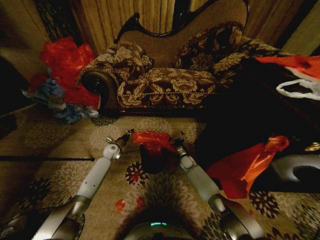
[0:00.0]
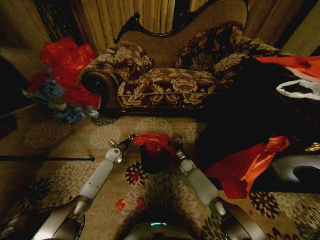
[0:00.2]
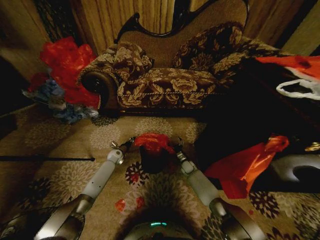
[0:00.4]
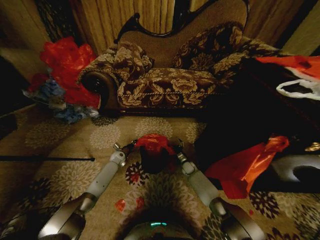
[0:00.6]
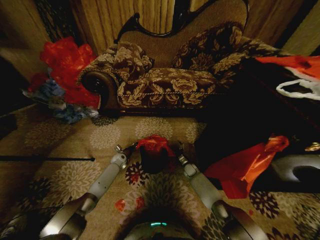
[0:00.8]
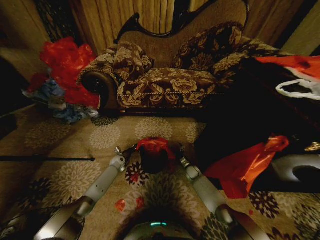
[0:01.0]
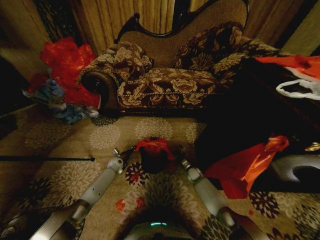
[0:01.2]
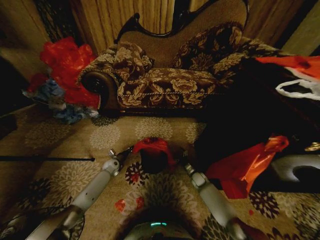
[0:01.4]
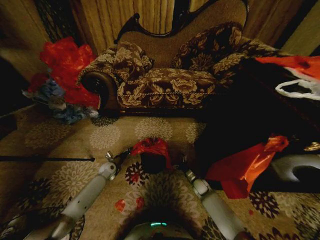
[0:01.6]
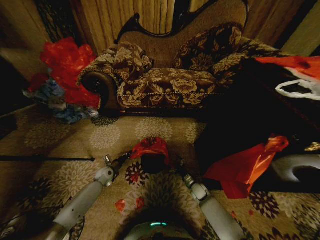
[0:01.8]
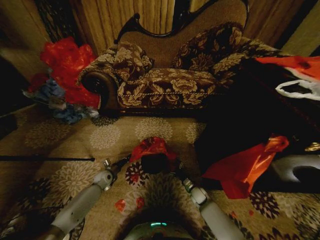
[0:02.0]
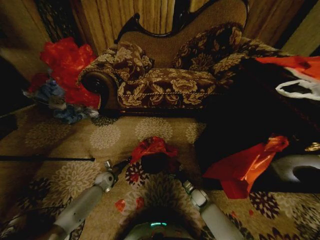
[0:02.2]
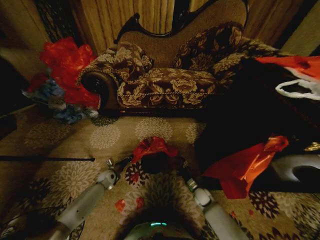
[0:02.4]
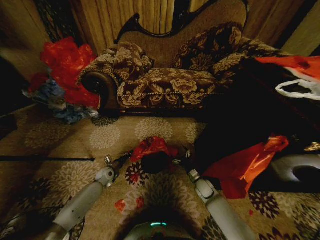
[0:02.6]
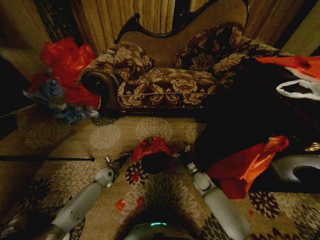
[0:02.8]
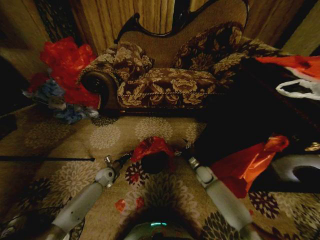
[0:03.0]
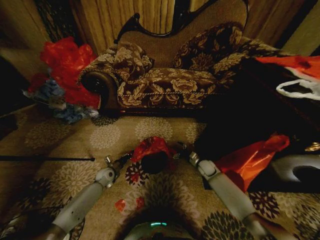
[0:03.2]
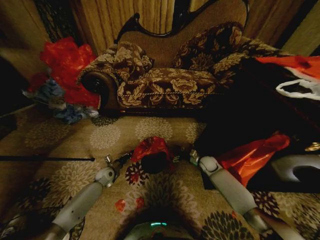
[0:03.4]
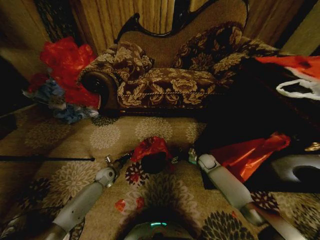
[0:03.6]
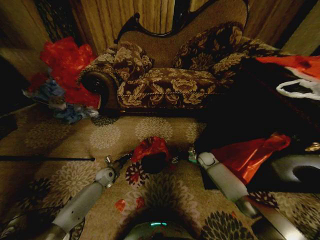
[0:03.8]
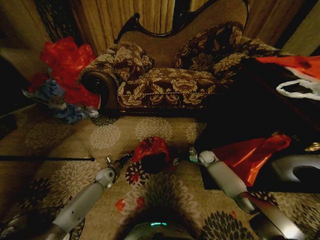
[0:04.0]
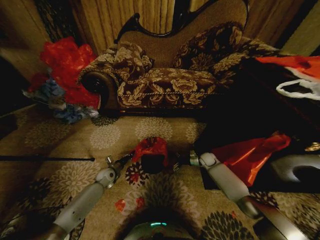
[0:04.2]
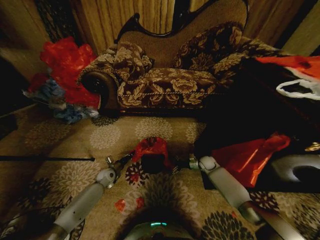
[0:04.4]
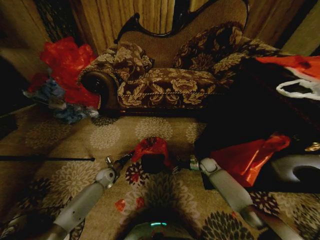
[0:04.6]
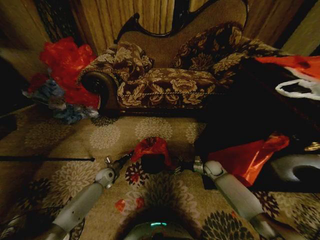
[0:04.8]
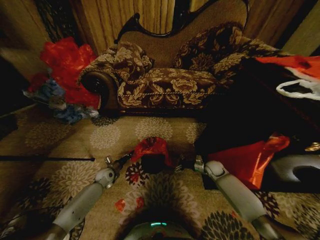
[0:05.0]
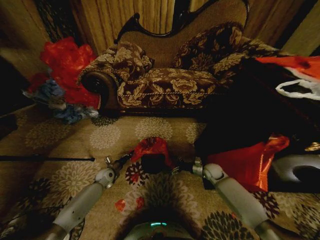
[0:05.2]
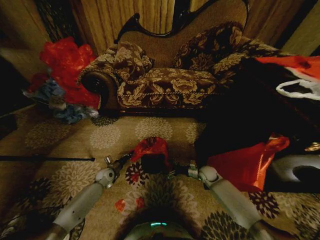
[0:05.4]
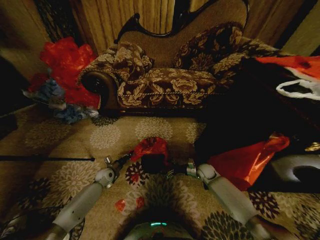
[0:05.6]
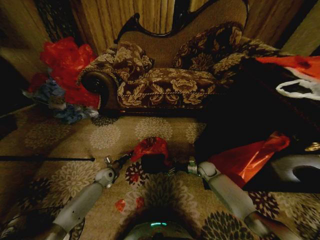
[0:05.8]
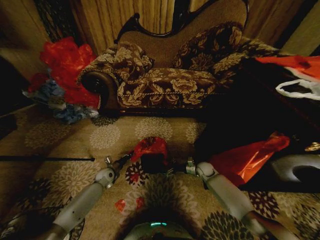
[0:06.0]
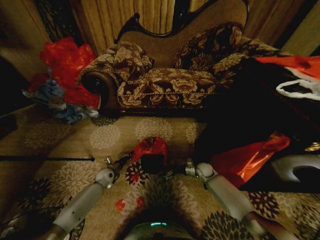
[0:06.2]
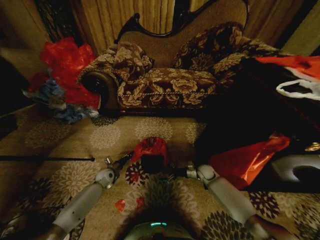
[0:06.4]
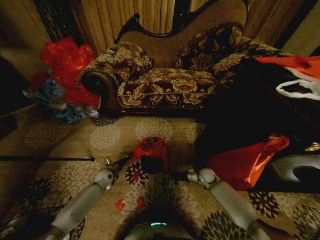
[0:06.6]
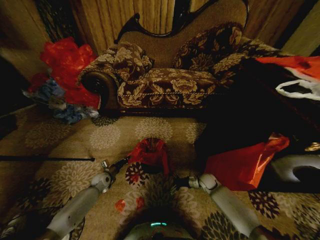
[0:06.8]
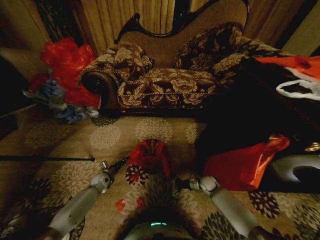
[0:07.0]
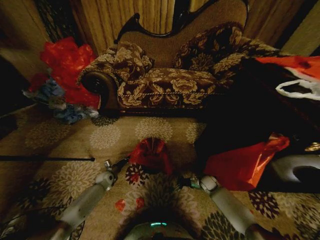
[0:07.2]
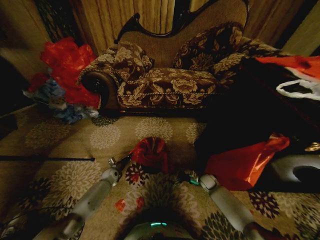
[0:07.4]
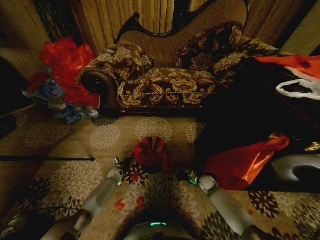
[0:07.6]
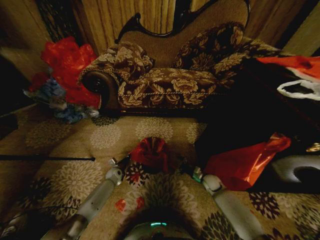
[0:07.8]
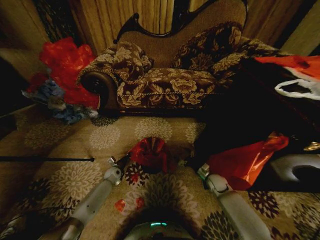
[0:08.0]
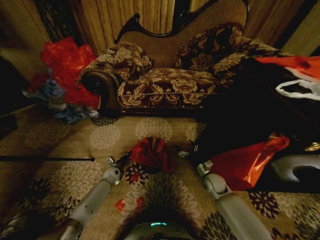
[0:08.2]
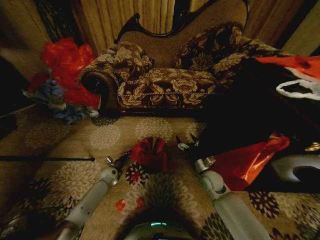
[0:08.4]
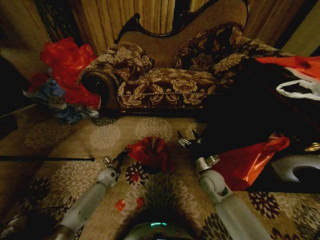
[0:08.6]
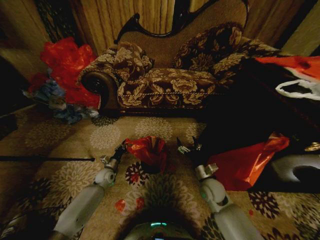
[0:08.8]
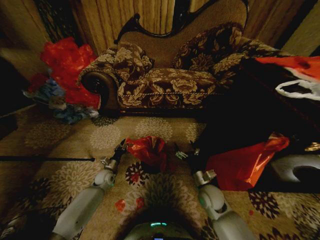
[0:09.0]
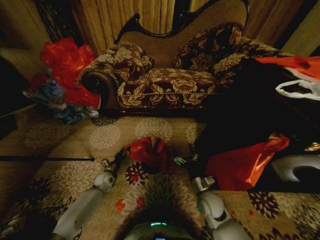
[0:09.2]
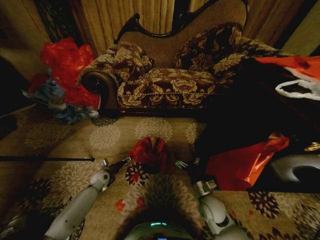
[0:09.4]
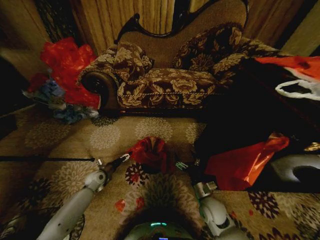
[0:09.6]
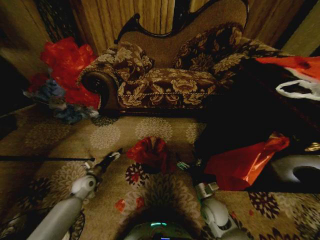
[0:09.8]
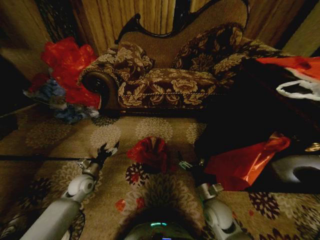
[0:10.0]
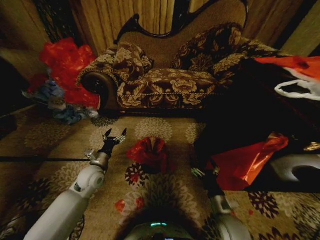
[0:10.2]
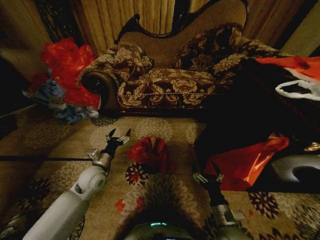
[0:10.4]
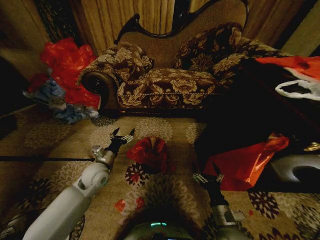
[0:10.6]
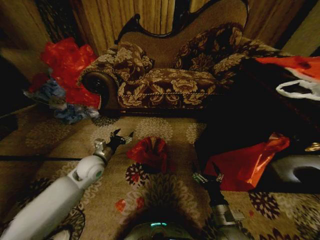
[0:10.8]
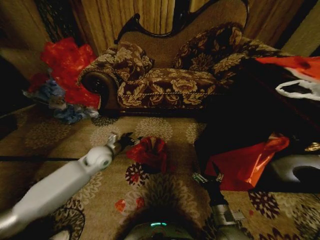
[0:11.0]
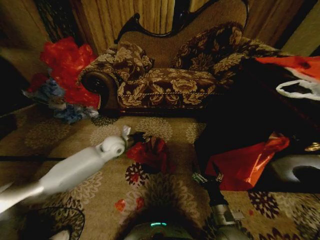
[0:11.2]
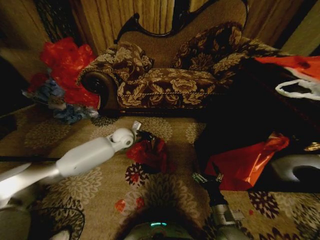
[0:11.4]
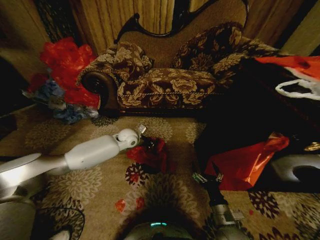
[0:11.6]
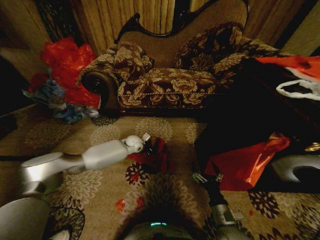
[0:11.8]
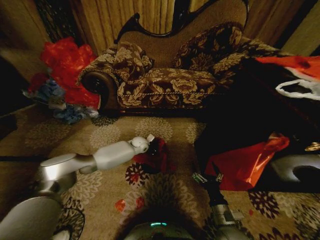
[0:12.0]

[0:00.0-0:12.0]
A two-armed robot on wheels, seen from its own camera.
Task of the whole recording: Place a garbage bag over the trash bin.
0:00.0 to 0:01.6: The left gripper travels backward and downward by some 10 cm. The right gripper is displaced backward, to the right and downward by some 15 cm.
0:01.6 to 0:03.0: The right gripper travels upward by some 10 cm.
0:03.0 to 0:04.4: The right gripper moves forward, some 5 cm.
0:06.0 to 0:07.6: Both grippers travel together downward, roughly 5 cm.
0:07.6 to 0:09.0: The right gripper goes approximately 20 cm upward, backward and to the left. The left gripper is displaced upward and backward by roughly 10 cm.
0:09.0 to 0:10.4: The left gripper is displaced upward and backward by roughly 20 cm, and opens its fingers. Meanwhile the right gripper shifts some 15 cm backward.
0:10.4 to 0:12.0: The left gripper goes some 25 cm forward and to the right, and closes.

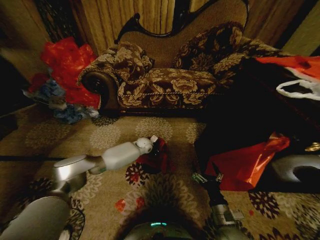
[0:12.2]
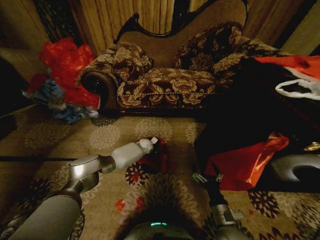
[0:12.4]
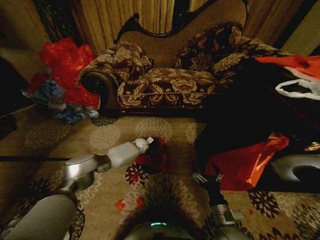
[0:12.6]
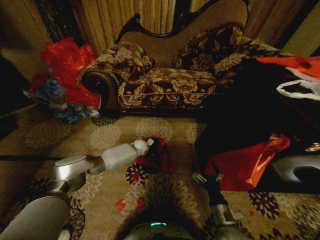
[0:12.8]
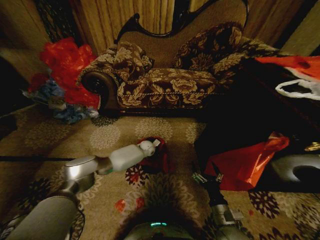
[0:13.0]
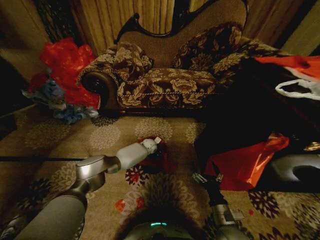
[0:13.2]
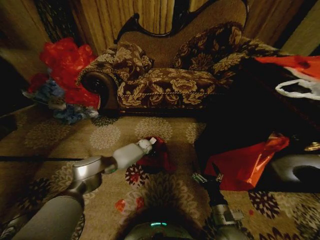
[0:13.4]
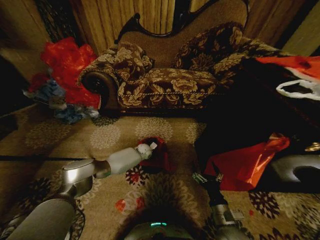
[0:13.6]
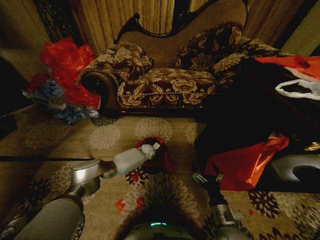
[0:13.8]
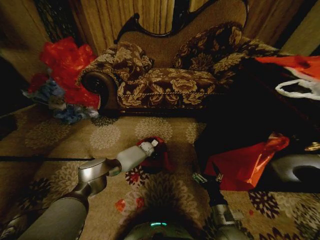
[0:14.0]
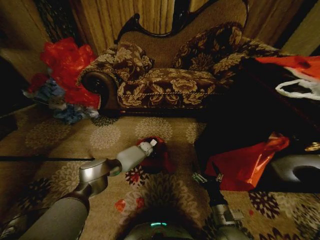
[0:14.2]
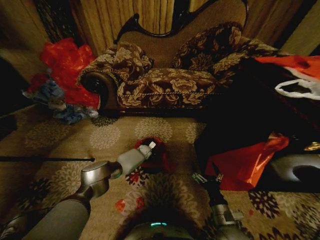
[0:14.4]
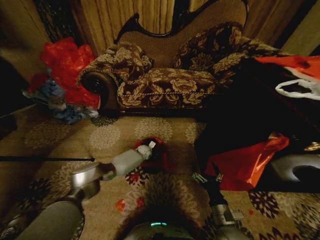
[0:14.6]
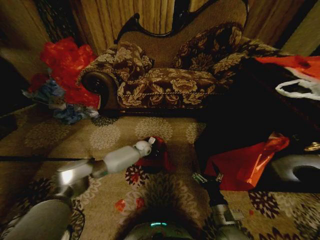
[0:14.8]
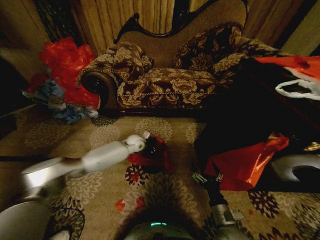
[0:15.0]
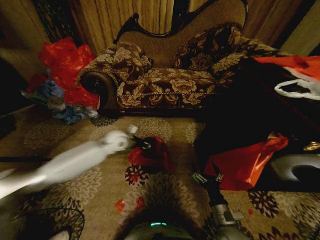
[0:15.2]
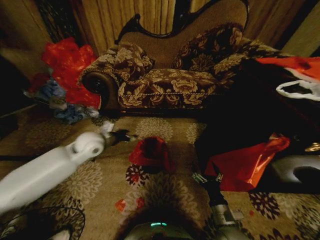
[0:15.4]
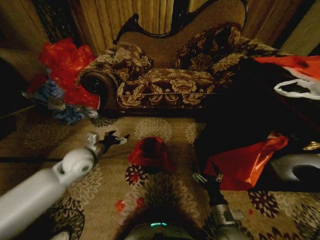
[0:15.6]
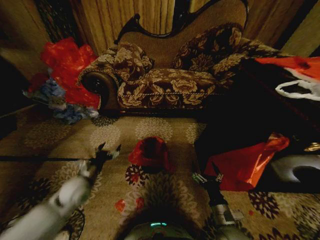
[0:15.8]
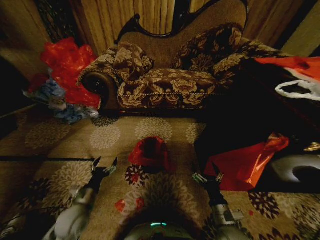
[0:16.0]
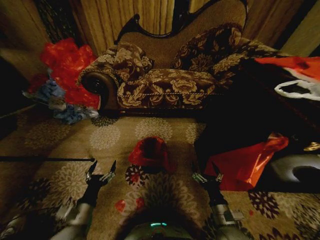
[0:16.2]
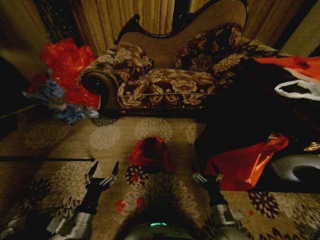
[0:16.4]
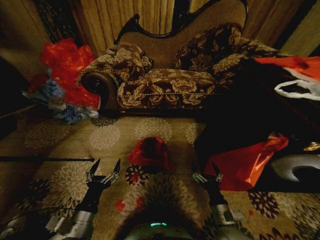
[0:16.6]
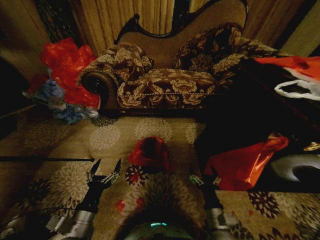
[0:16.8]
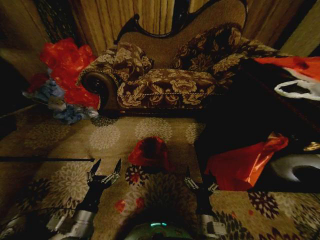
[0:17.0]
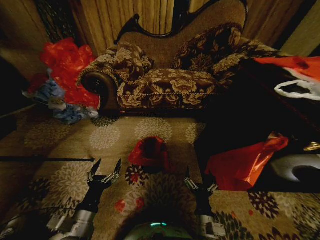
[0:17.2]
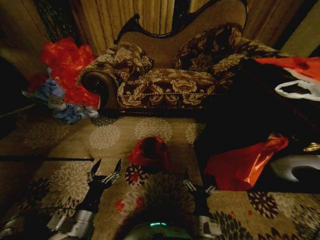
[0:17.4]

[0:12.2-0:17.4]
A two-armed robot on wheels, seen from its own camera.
Task of the whole recording: Place a garbage bag over the trash bin.
0:12.2 to 0:14.0: The left gripper moves downward, about 5 cm.
0:14.0 to 0:15.6: The left gripper goes roughly 40 cm backward, to the left and upward, and opens its fingers.
0:15.6 to 0:17.4: The right gripper heads to the left, covering some 10 cm. The left gripper goes about 25 cm backward.
